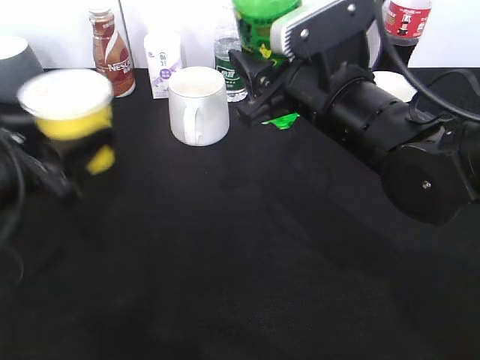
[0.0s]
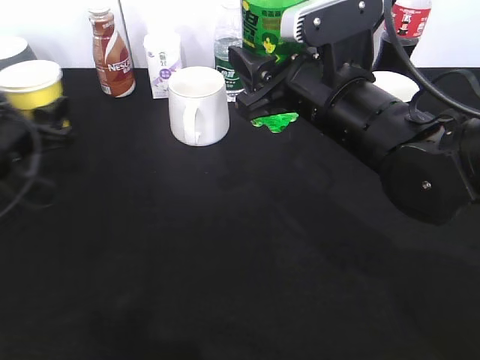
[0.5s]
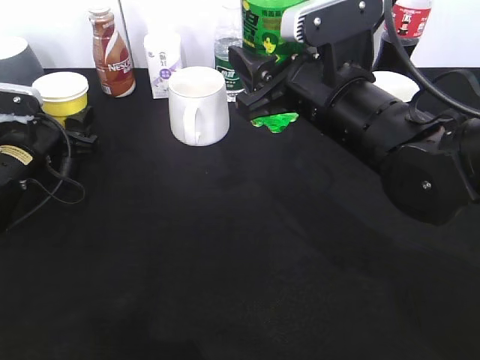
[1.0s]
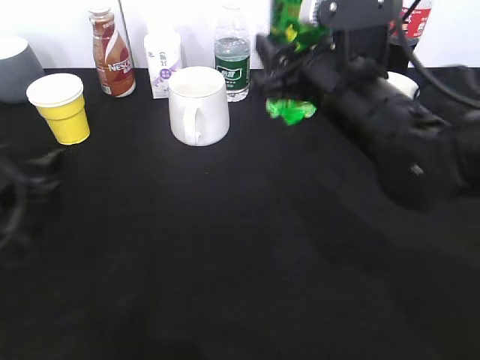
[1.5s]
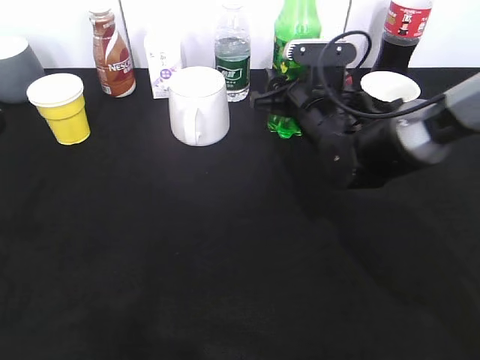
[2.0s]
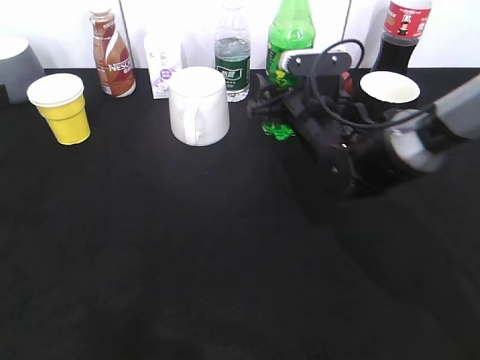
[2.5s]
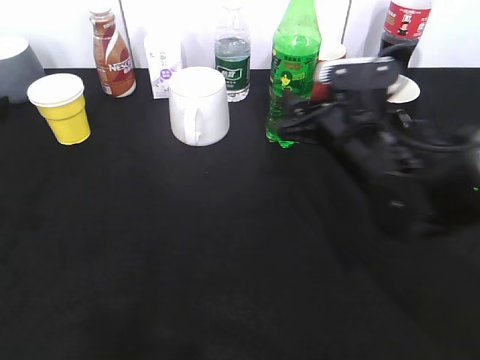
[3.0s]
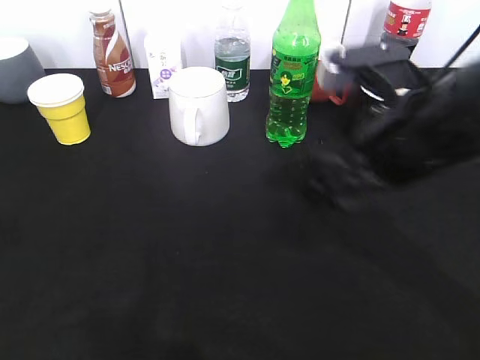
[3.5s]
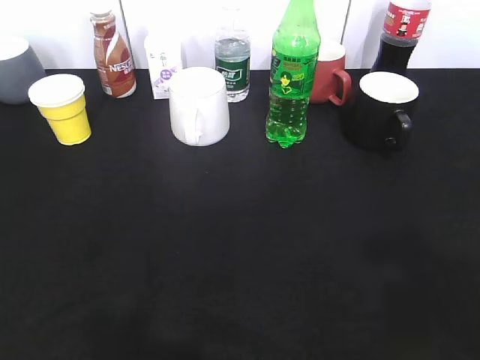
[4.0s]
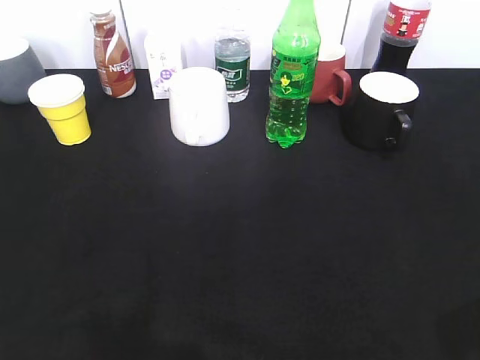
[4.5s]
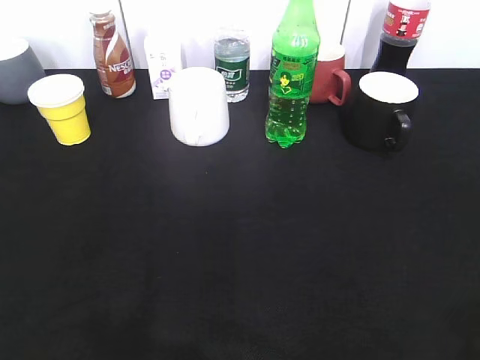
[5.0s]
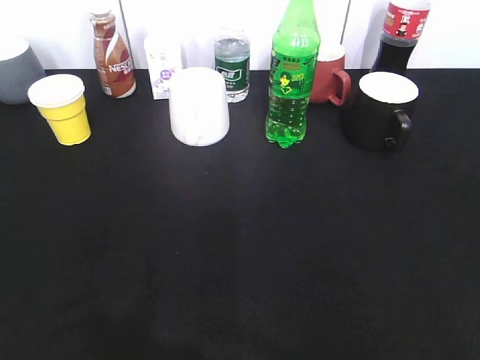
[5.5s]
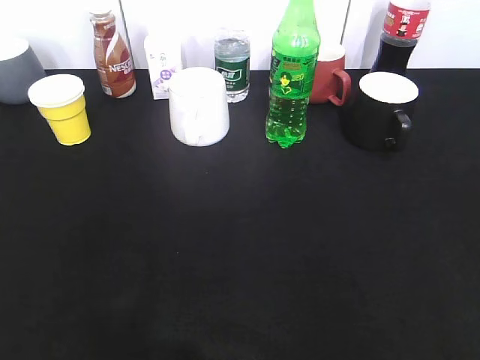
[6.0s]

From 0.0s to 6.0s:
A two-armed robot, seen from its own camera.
Step, from 0.0s to 2.5s: Place the sprite bottle on the table with right gripper.
From 0.0s to 2.0s: The left gripper moves to the left, about 5 cm, travels forward and back again, about 15 cm each way, and opens its fingers. The right gripper shifts approximately 15 cm forward and downward.
From 2.0s to 4.0s: The left gripper is displaced backward and upward by some 20 cm. Meanwhile the right gripper heads backward, upward and to the right, covering approximately 40 cm, and opens.

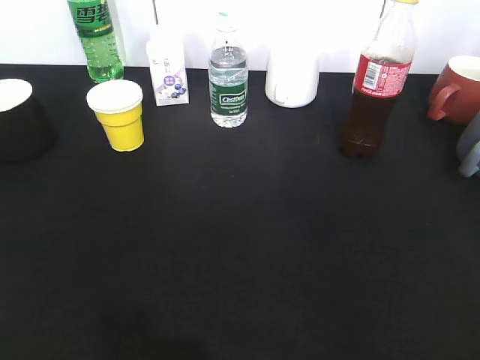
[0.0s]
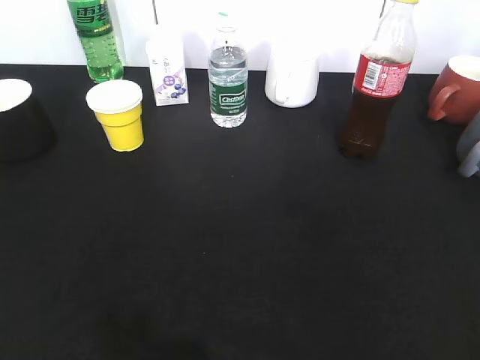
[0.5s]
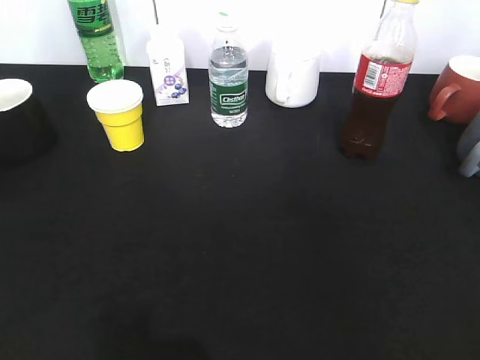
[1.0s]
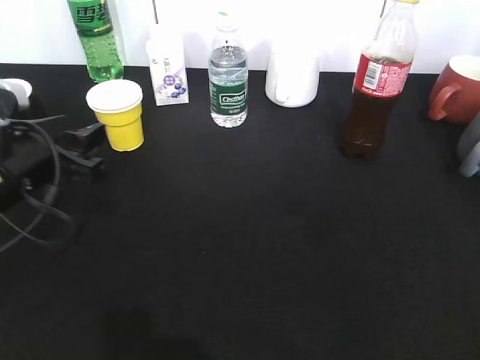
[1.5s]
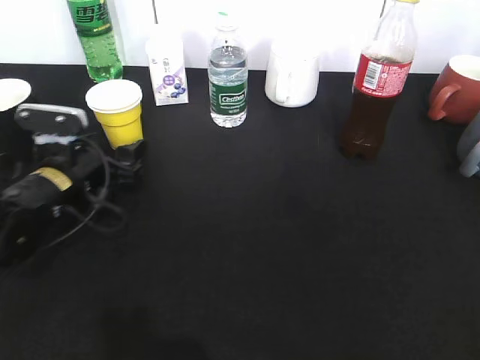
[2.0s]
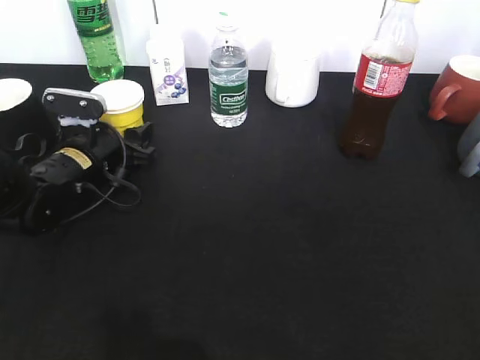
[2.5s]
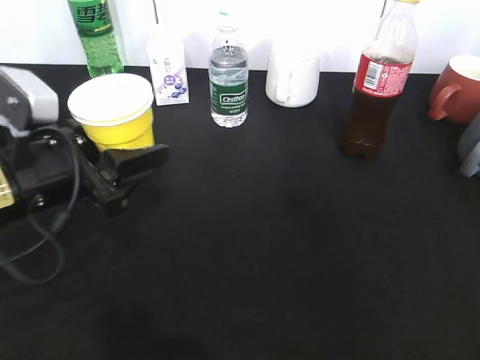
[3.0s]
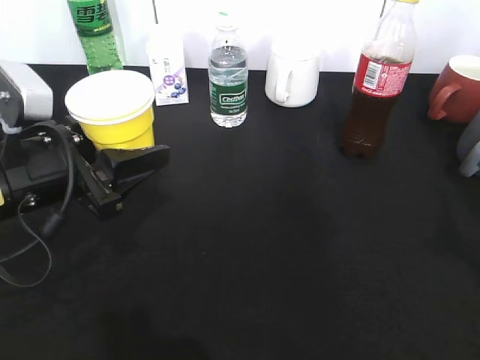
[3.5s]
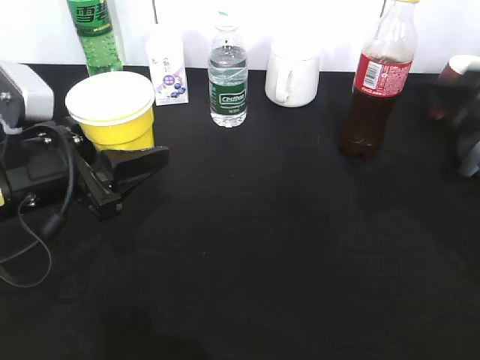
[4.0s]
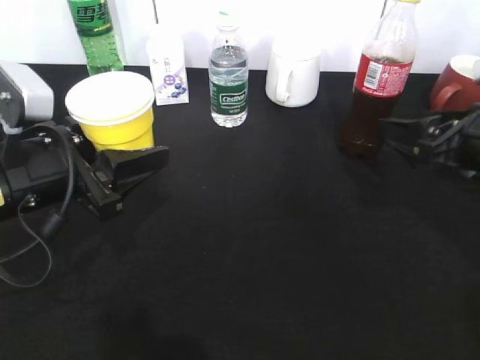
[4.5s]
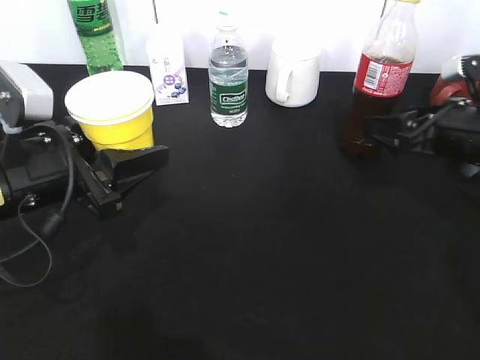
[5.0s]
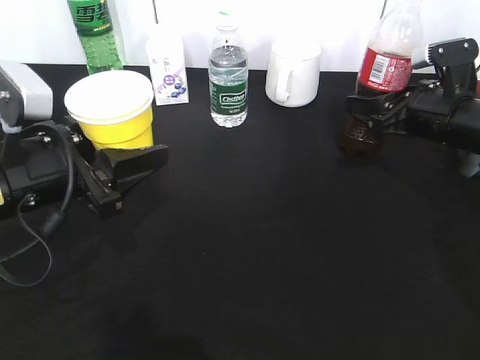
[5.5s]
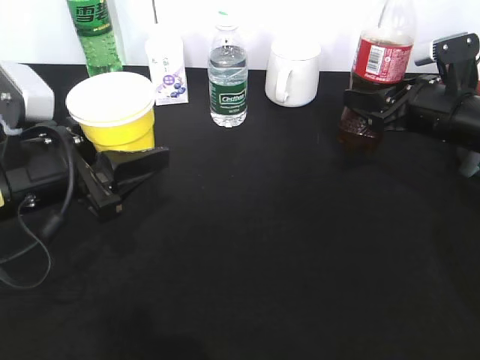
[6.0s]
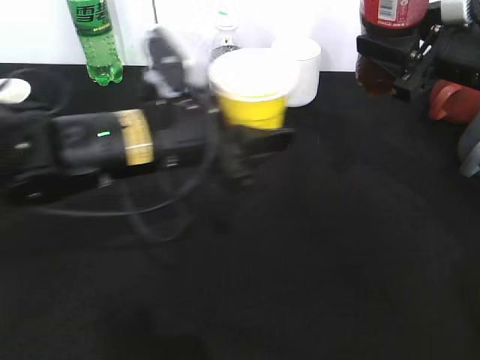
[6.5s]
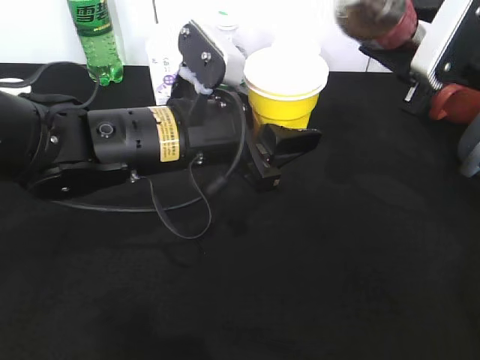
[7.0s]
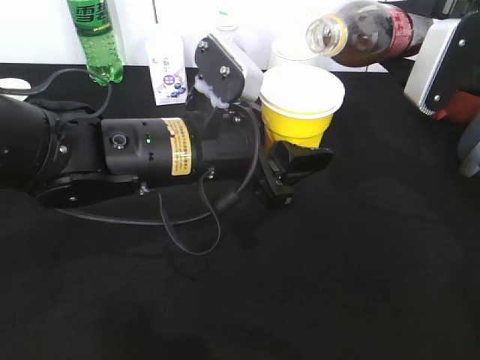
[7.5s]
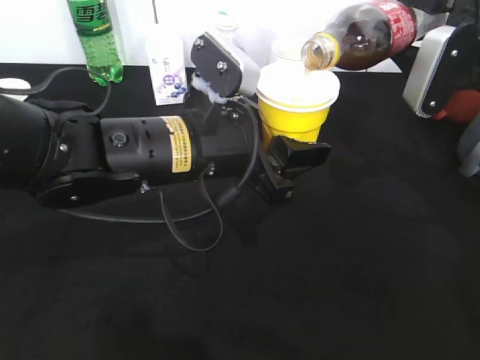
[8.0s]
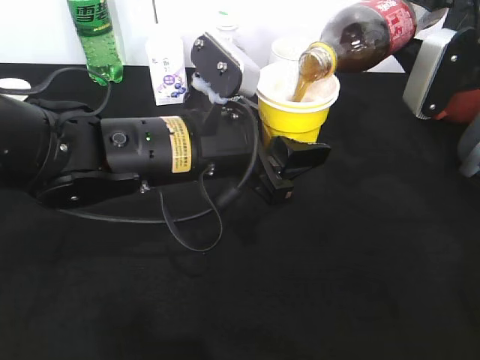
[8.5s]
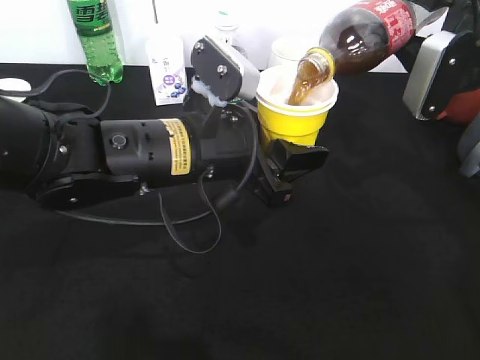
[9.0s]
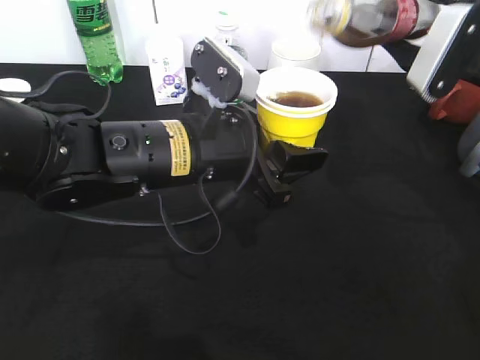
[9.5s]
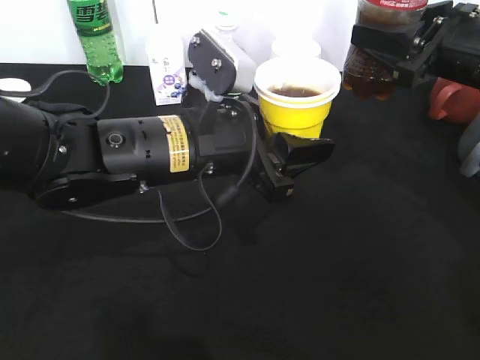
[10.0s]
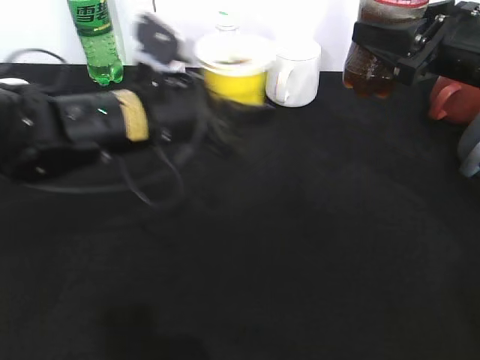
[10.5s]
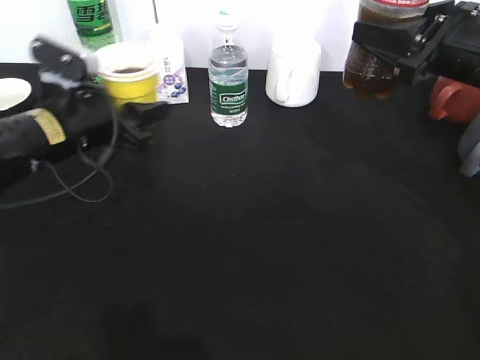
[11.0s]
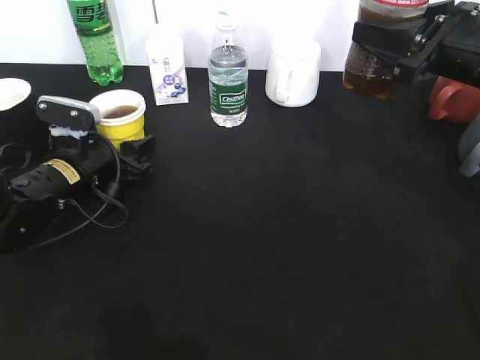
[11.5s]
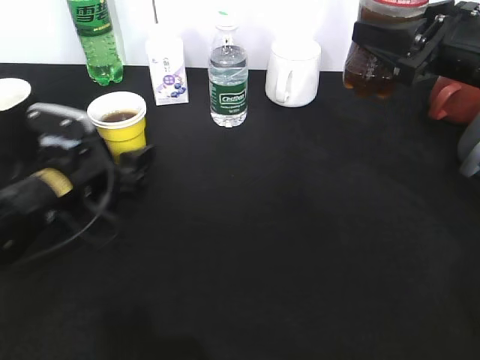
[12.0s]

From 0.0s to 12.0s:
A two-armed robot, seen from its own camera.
Step, from 0.0s to 2.0s: Grasp the yellow paper cup with left gripper.
Step, from 3.5s to 5.5s: Grasp the bottle with cola with right gripper.
Step, from 6.0s to 9.0s: Pour the cola from bottle to cup with right gripper.
From 0.0s to 2.0s: The left gripper shifts about 35 cm forward and downward, and opens up.
From 2.0s to 4.0s: The right gripper travels forward by about 25 cm. Meanwhile the left gripper shifts some 15 cm upward and backward, and closes.
From 4.0s to 6.0s: The right gripper heads forward and downward, covering some 15 cm, and closes up.
From 6.0s to 8.0s: The right gripper goes roughly 10 cm upward. Meanwhile the left gripper moves to the right, roughly 15 cm.
From 10.0s to 12.0s: The left gripper is displaced to the left and downward by roughly 20 cm.

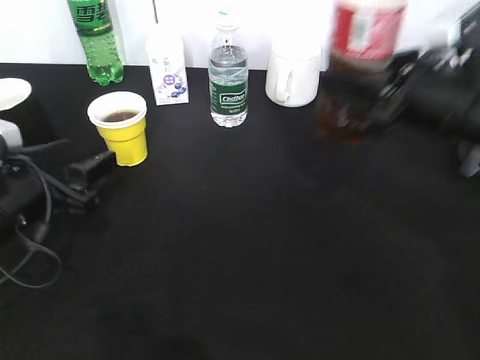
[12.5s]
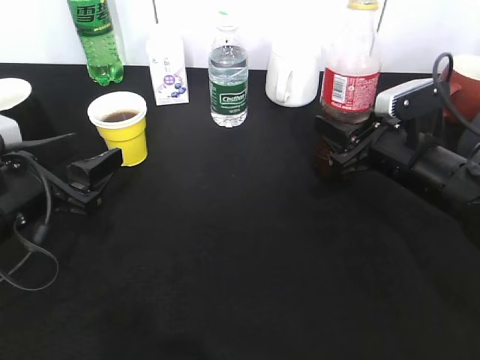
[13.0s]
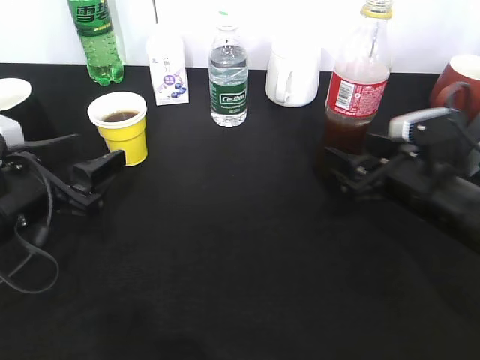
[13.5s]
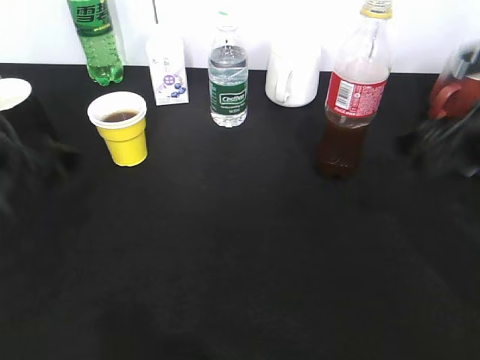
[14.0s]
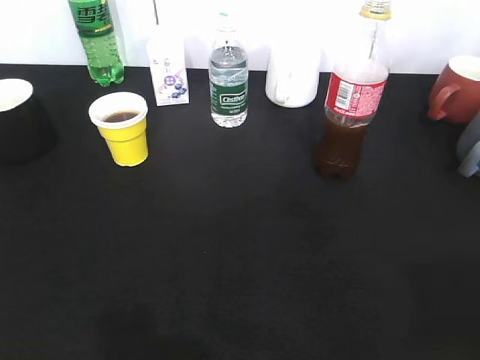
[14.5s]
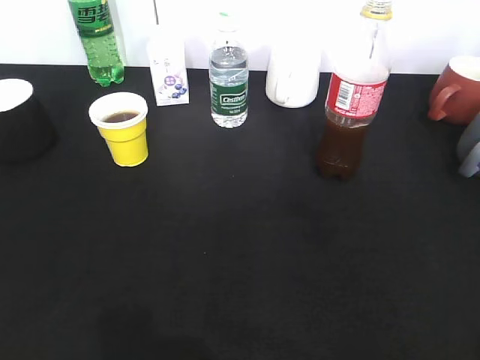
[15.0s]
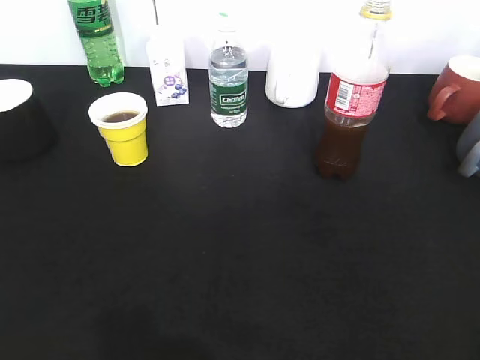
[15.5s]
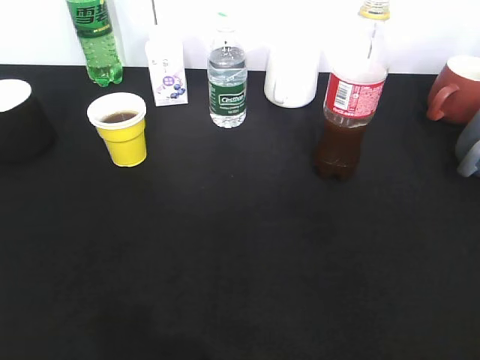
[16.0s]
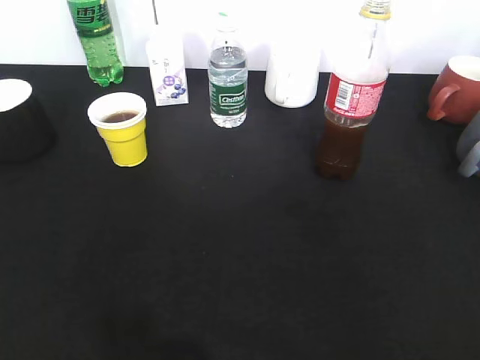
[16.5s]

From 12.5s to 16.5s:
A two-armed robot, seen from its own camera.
Step, from 12.5s to 13.5s: Place the cola bottle on the table with right gripper.
From 12.5s to 14.5s: Both grippers travel together backward and upward, roughly 25 cm. The right gripper opens its fingers.
From 14.5s to 16.5s: The left gripper moves roughly 5 cm.
